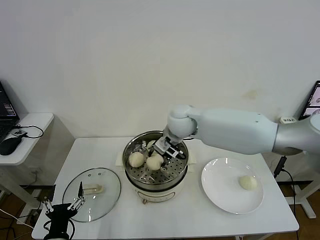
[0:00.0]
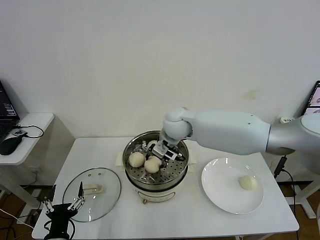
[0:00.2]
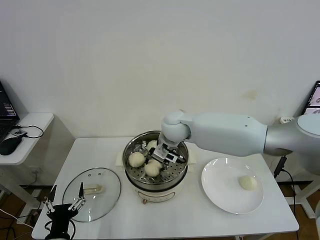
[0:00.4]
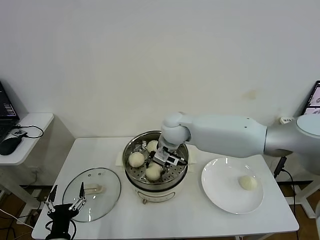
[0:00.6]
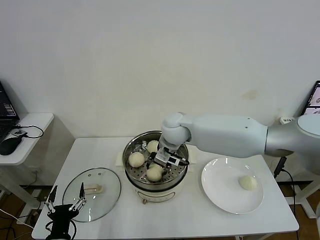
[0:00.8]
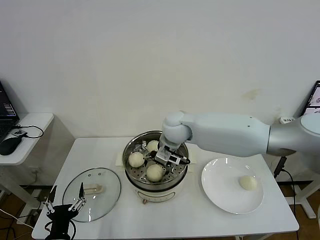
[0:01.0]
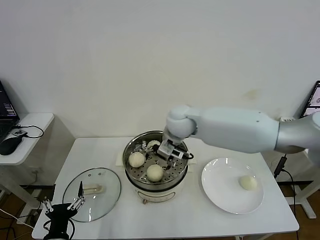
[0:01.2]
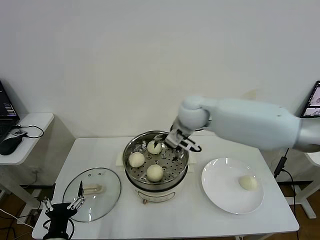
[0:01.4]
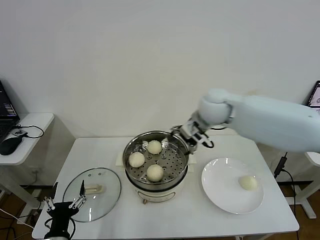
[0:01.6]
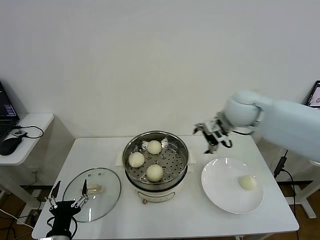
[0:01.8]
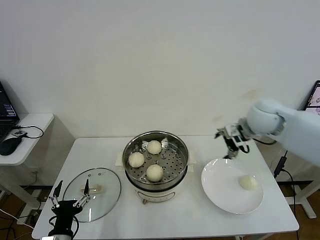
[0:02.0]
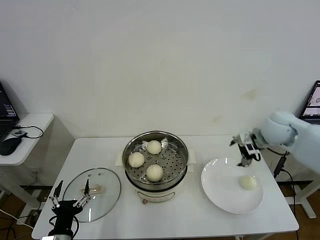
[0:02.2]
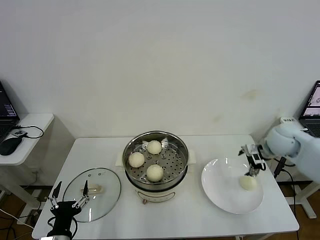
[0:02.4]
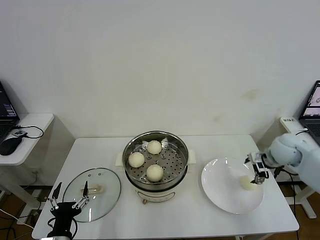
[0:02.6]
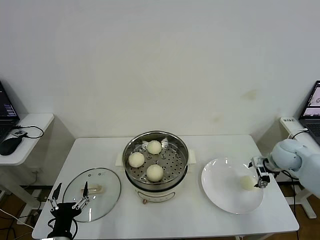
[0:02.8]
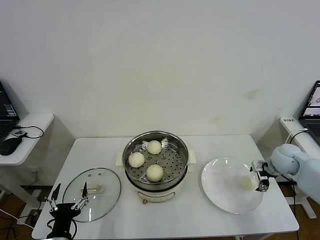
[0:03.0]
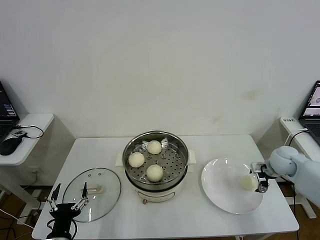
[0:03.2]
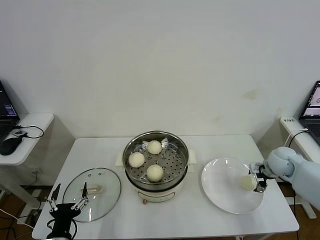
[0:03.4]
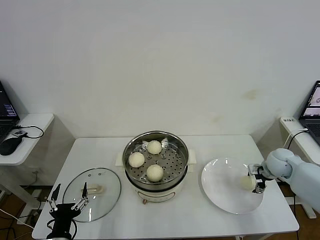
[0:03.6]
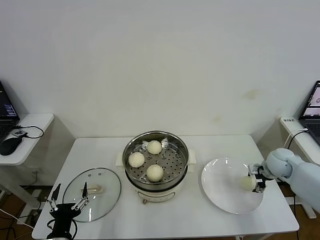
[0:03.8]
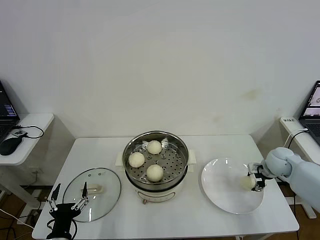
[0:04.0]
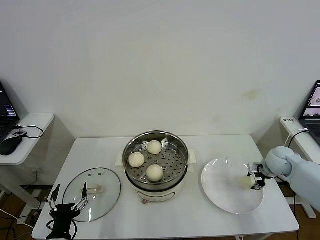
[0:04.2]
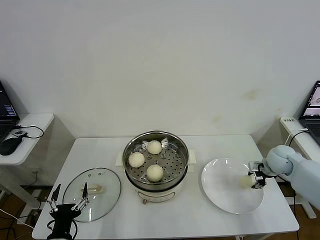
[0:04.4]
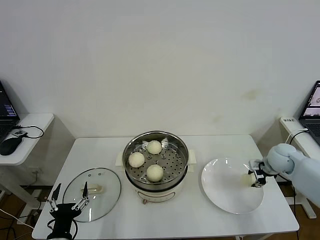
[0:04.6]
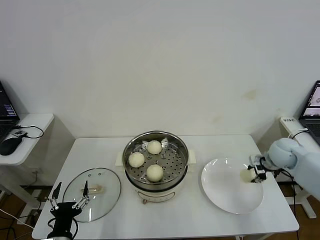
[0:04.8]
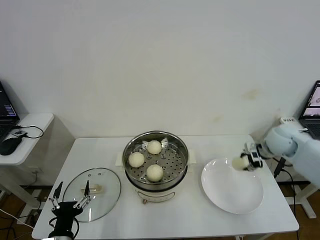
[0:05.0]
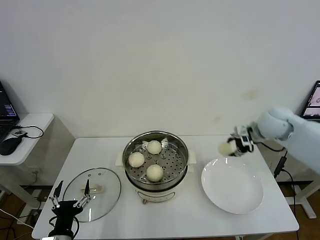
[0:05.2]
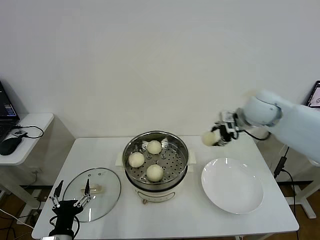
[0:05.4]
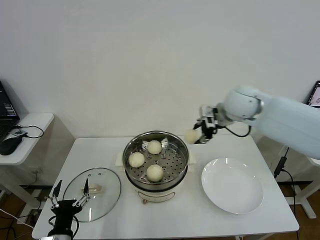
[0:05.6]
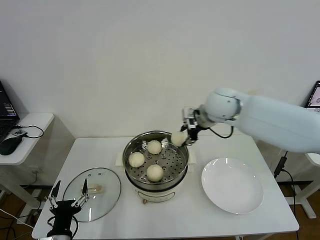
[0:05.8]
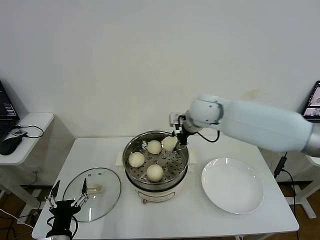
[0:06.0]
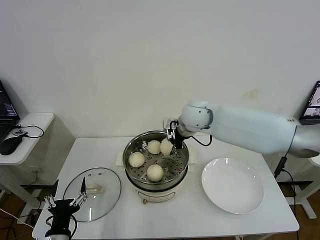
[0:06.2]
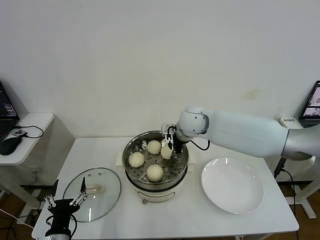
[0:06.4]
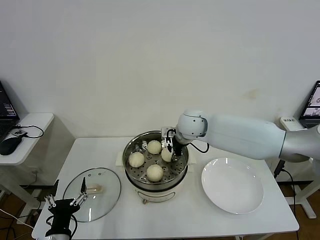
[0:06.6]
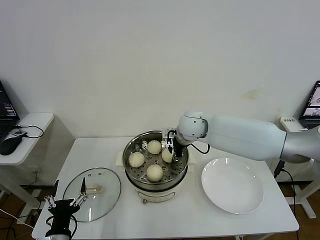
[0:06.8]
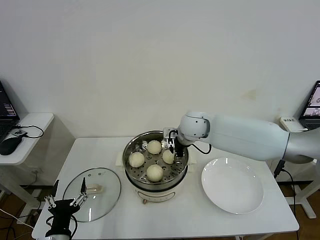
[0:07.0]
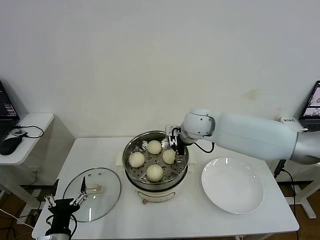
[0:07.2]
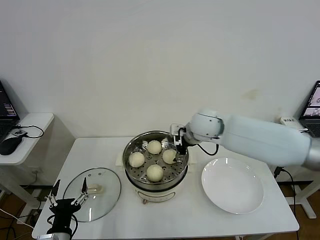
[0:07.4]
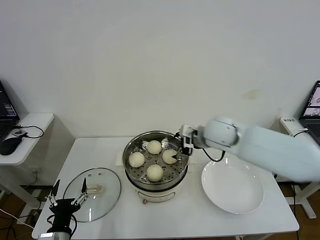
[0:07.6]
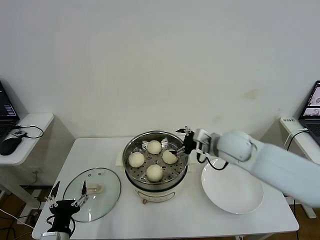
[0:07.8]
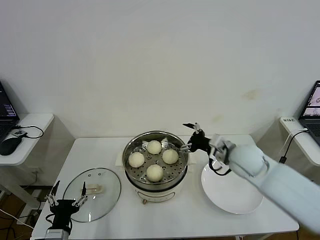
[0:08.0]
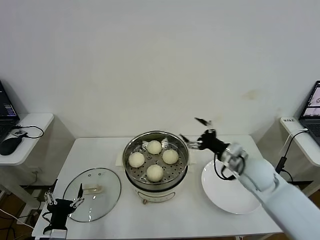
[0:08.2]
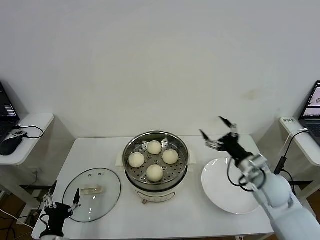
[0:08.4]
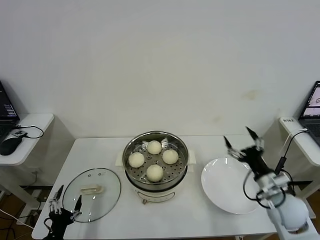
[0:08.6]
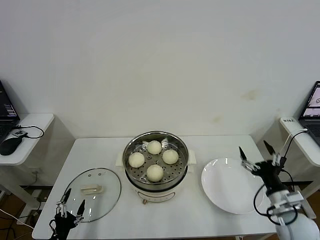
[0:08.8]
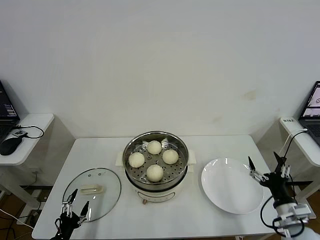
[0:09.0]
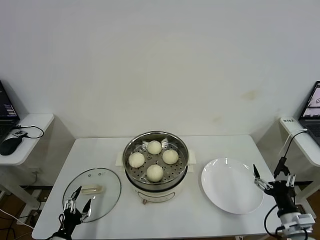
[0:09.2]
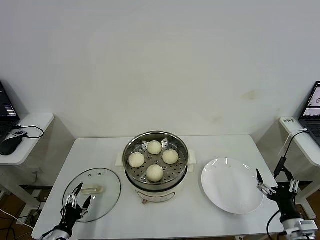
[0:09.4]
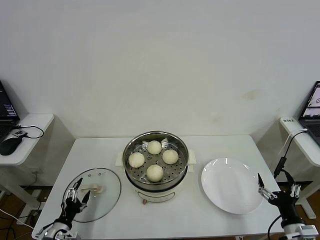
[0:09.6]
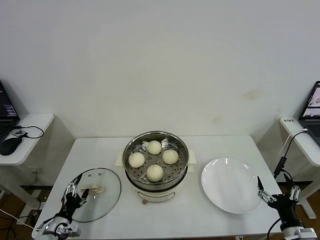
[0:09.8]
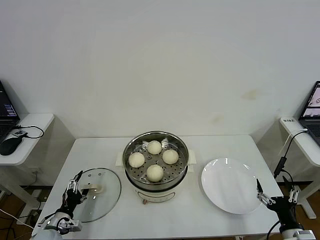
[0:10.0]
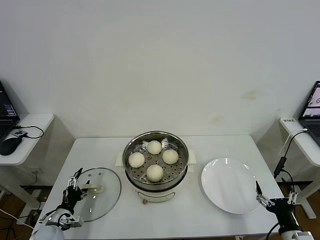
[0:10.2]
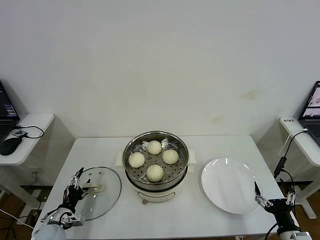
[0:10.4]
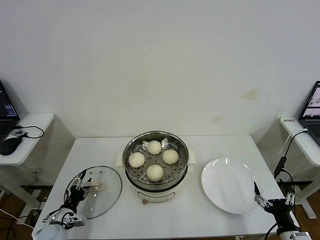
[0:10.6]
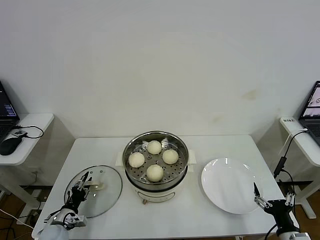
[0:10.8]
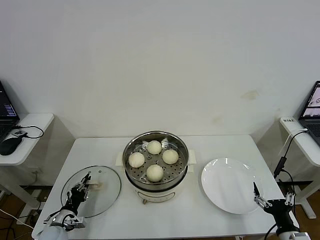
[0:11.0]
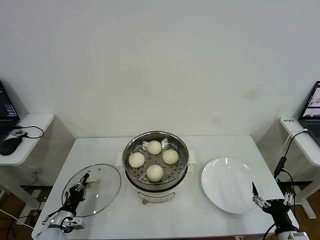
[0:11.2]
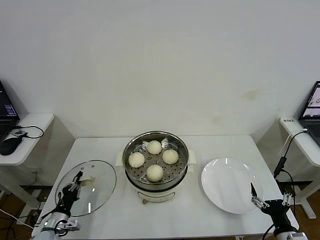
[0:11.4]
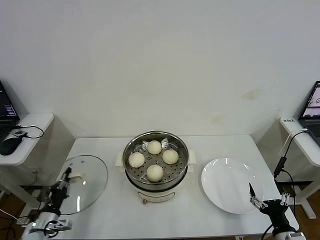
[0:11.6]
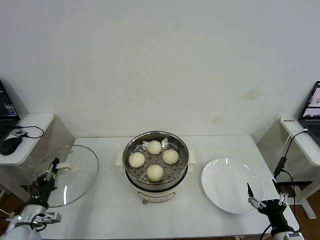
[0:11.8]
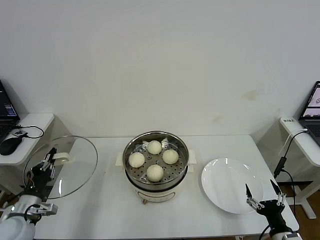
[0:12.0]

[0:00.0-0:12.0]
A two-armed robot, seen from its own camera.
Step, 0:01.4 to 0:04.2: Grasp the baozi in the plate with right gripper.
Step, 0:04.4 to 0:07.0: Place the baozi on the steamer with right gripper.
Step, 0:07.2 to 0:11.2: Grasp the pot lid with left gripper.
0:00.0 to 0:01.6: The right gripper travels to the right and upward by some 15 cm, and opens its fingers.
0:01.6 to 0:03.0: The right gripper moves to the right and downward, approximately 30 cm.
0:03.0 to 0:04.4: The right gripper closes.
0:04.4 to 0:06.0: The right gripper heads to the left and upward, covering about 35 cm.
0:06.0 to 0:07.6: The right gripper moves to the right and backward, some 10 cm, and opens.
0:07.6 to 0:09.0: The left gripper travels downward and to the left by roughly 10 cm. Meanwhile the right gripper goes some 35 cm backward, to the right and downward.
0:09.0 to 0:10.4: The right gripper is displaced backward by roughly 5 cm; the left gripper heads forward, covering roughly 10 cm.
0:10.4 to 0:12.0: The left gripper shifts approximately 15 cm upward, and closes up.

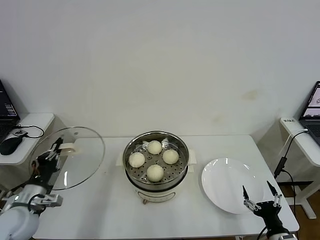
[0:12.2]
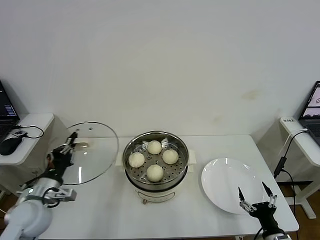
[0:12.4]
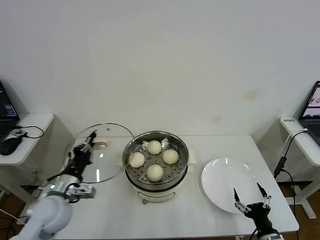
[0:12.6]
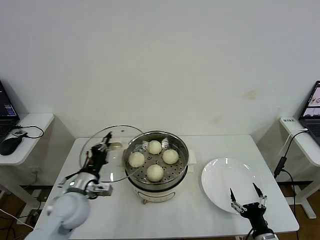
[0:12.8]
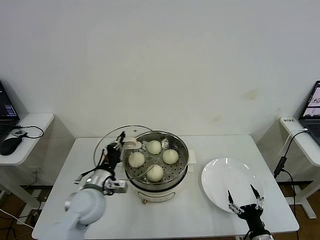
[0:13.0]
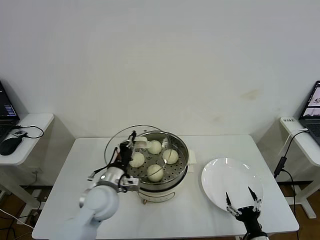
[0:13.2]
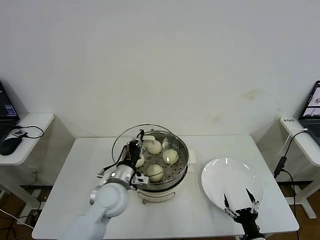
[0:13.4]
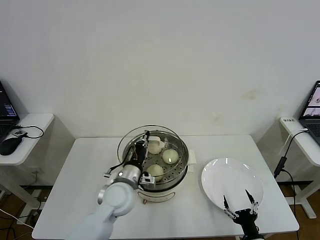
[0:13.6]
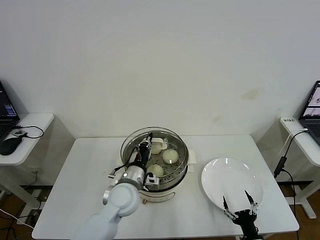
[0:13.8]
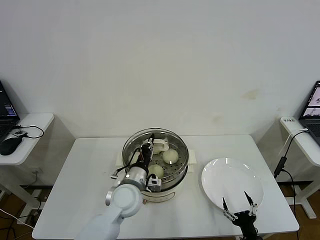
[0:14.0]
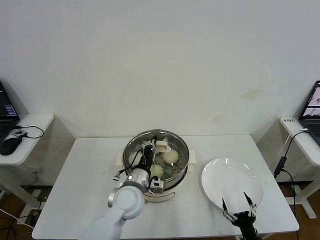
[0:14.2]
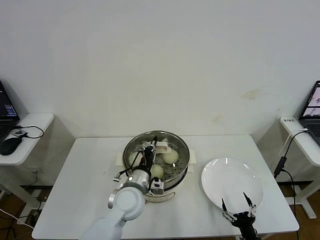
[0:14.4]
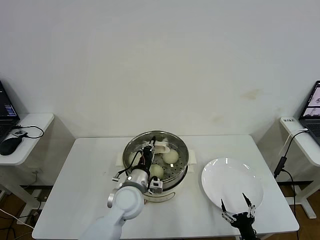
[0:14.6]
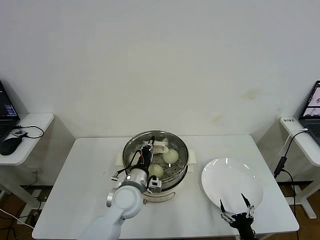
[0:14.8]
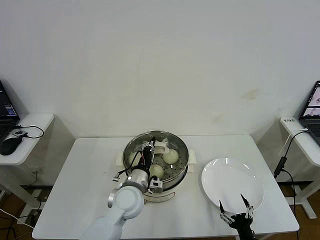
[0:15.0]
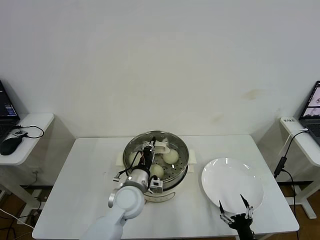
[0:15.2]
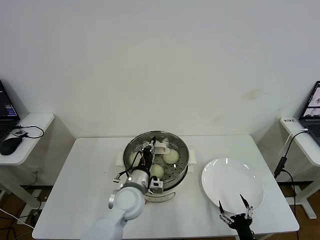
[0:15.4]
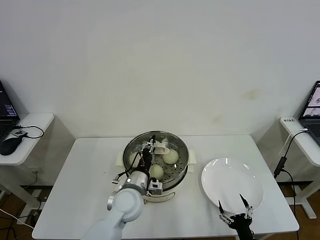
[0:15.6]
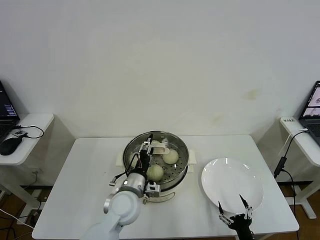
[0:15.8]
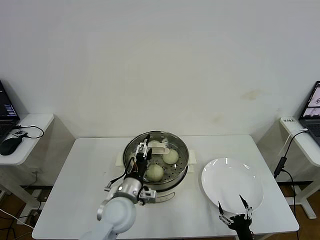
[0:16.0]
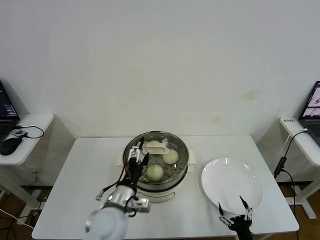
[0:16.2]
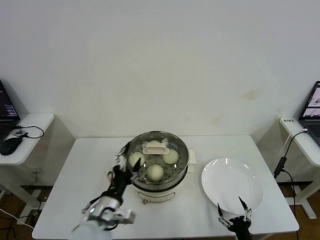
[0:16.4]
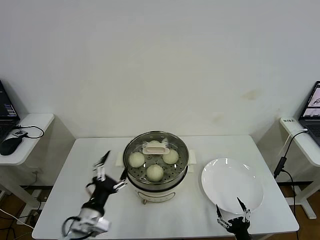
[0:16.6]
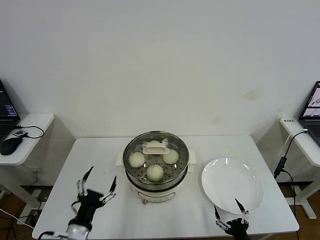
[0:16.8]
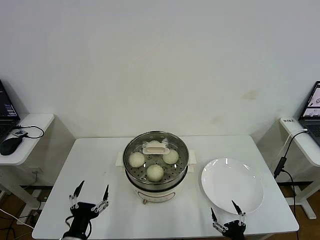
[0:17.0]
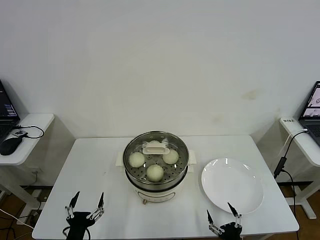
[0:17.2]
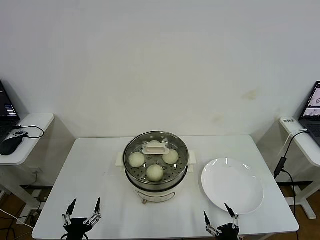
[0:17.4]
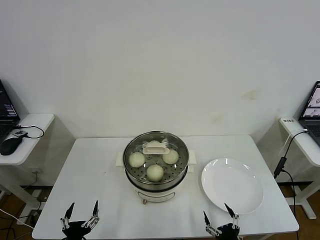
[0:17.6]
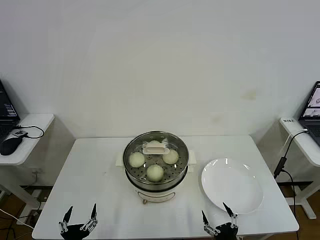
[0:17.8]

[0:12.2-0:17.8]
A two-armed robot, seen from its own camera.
Step, 0:12.2 to 0:15.6: Place the pot lid on the steamer with left gripper.
0:12.2 to 0:13.6: The right gripper heads downward, covering approximately 5 cm. The left gripper travels to the right by about 25 cm.
0:13.6 to 0:15.0: The grippers stay close to where they were, moving slightly.
0:15.0 to 0:16.4: The left gripper travels backward and to the left by about 10 cm, and opens.
0:16.4 to 0:17.8: The right gripper shifts by about 5 cm. The left gripper is displaced backward, downward and to the left by about 20 cm.
